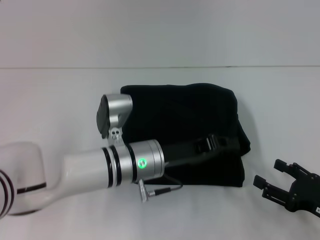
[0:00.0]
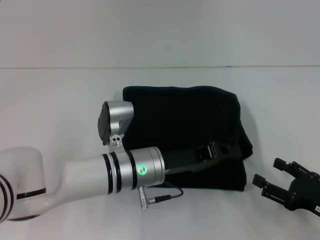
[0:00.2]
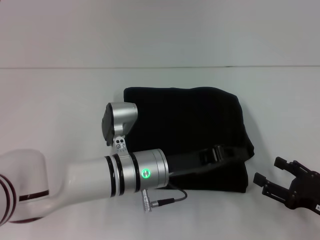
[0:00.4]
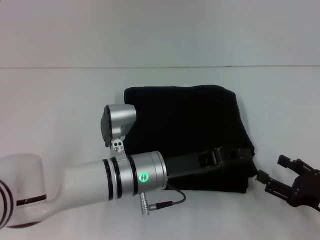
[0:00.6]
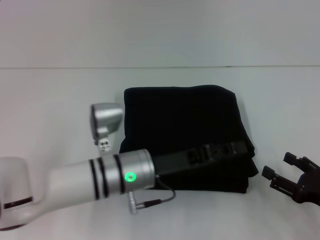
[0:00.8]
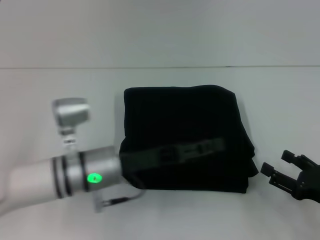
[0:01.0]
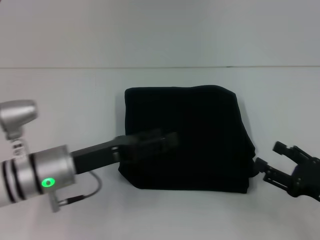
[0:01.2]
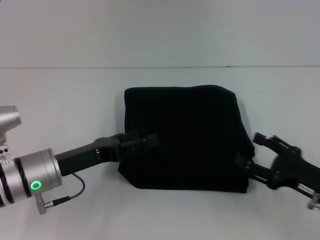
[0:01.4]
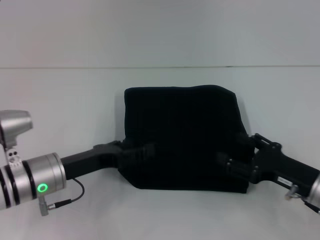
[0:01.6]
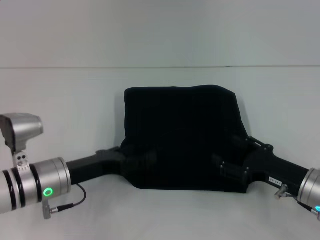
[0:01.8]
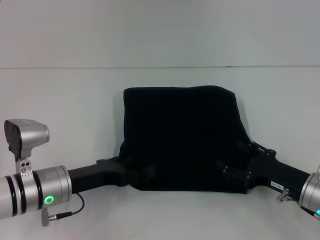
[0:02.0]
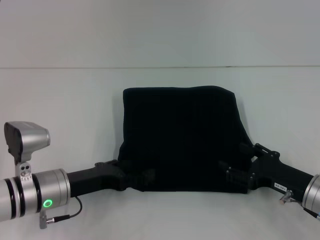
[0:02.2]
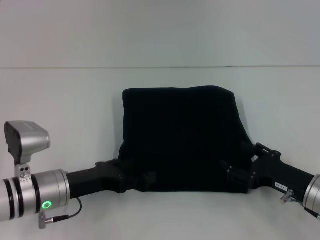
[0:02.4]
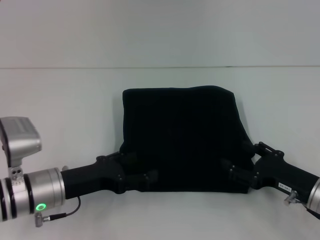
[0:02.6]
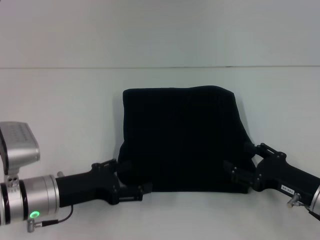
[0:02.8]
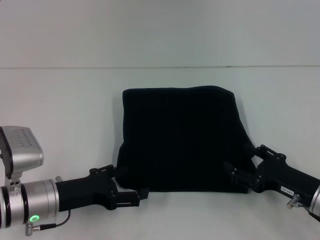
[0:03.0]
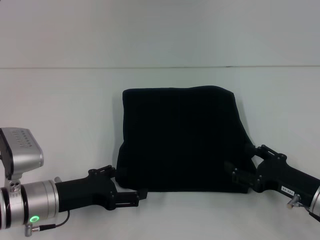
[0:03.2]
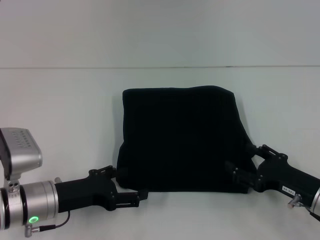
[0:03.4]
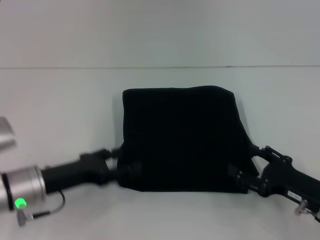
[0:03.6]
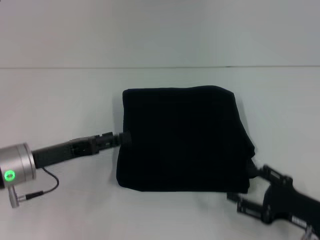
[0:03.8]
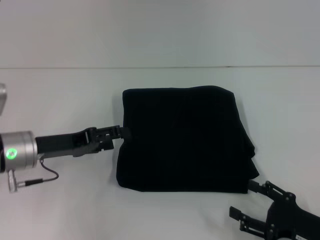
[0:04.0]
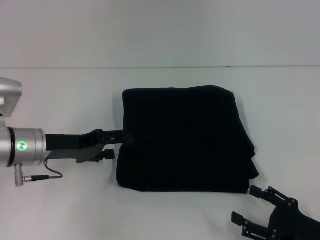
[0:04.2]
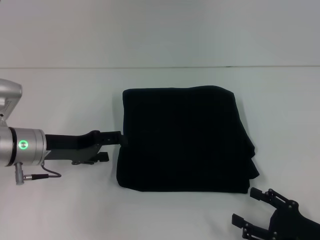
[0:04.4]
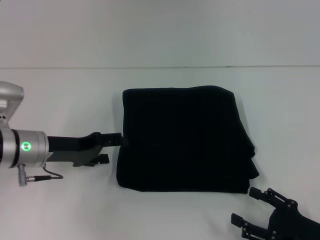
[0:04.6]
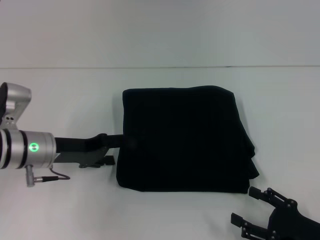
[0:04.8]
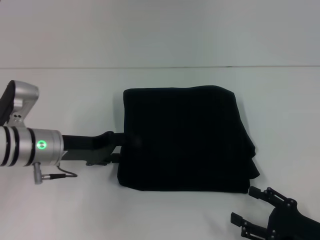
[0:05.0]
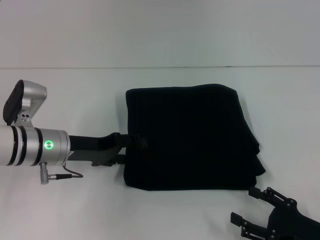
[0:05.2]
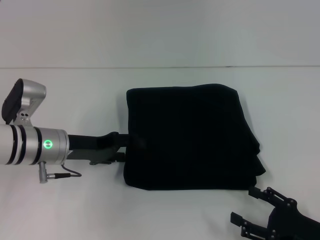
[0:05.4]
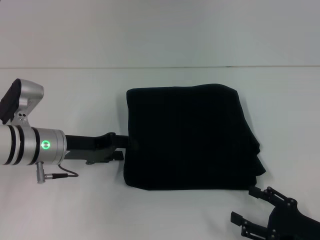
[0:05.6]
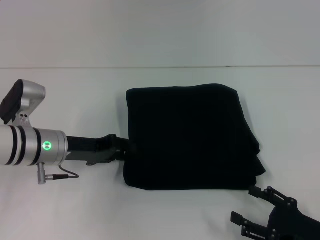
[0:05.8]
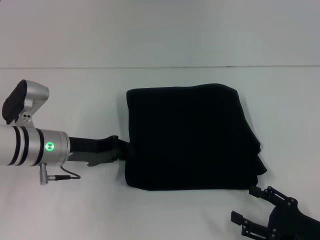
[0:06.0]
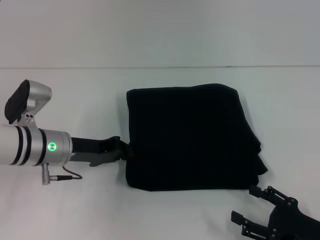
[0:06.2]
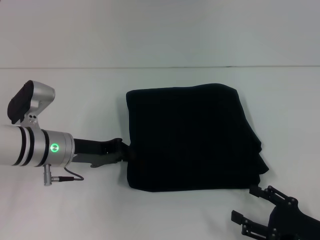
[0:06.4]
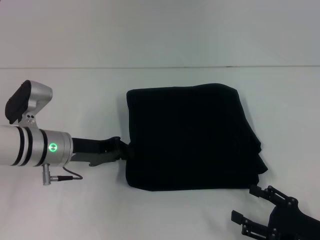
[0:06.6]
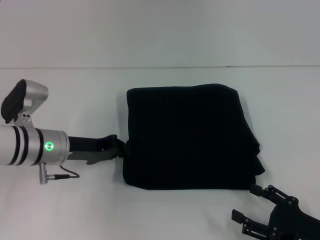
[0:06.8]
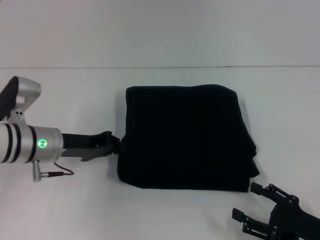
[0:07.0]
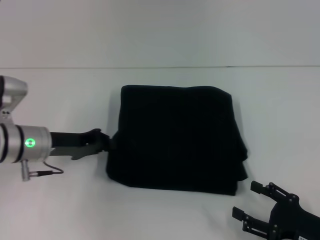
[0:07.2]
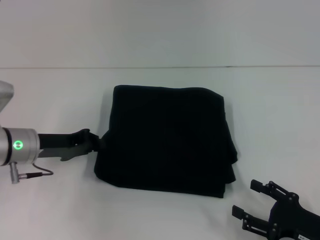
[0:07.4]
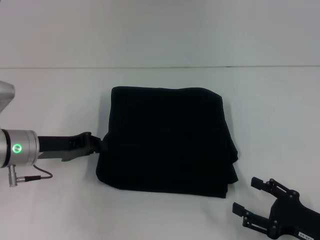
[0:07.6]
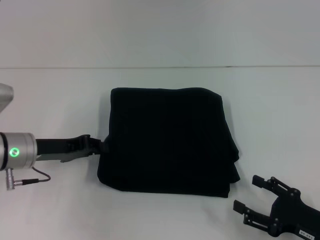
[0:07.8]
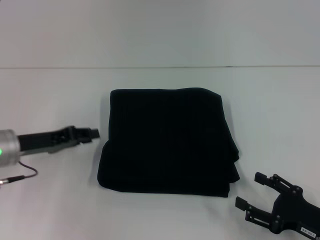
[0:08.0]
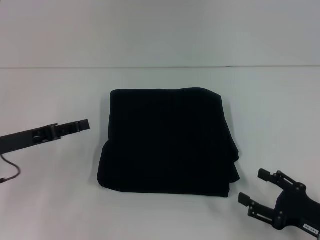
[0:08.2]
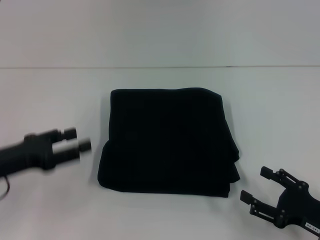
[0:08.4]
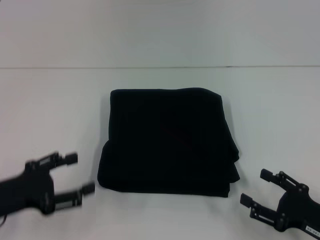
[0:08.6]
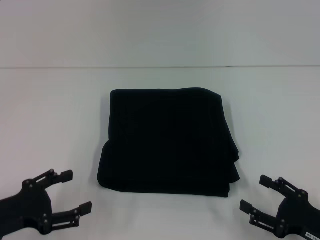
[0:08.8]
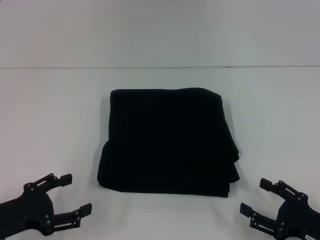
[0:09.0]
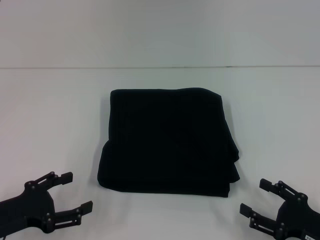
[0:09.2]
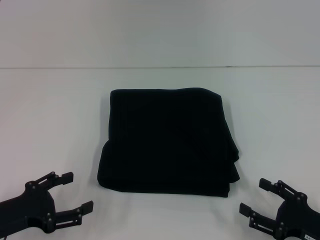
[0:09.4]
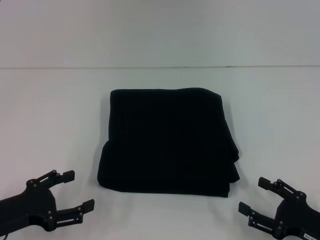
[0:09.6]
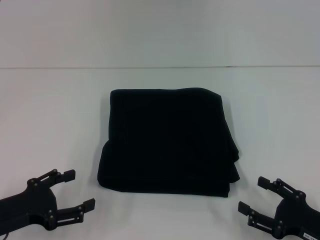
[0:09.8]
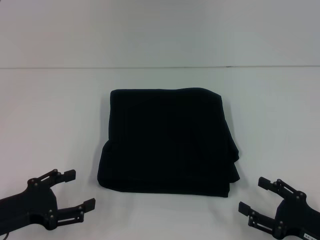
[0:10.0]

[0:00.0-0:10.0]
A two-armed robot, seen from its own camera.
0:00.0 to 0:01.4: The left gripper heads to the left, covering roughly 15 cm, and opens.
0:02.8 to 0:04.2: The left gripper heads forward, covering about 5 cm, while the right gripper moves backward, some 5 cm.
0:04.2 to 0:05.8: The left gripper closes.
0:05.8 to 0:07.2: The left gripper closes.
0:07.2 to 0:08.6: The left gripper goes approximately 15 cm backward and to the left, and opens its fingers.
0:08.6 to 0:10.0: The grippers stay close to where they were, moving slightly.

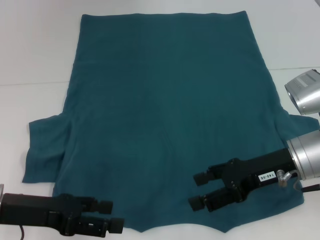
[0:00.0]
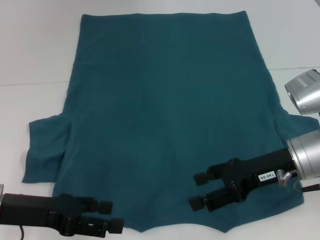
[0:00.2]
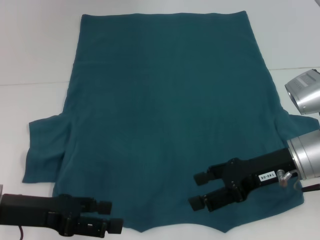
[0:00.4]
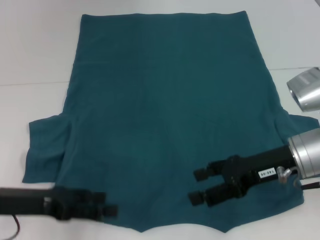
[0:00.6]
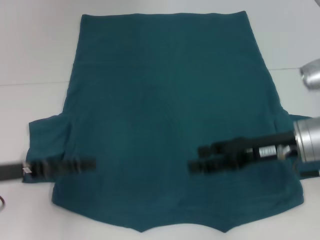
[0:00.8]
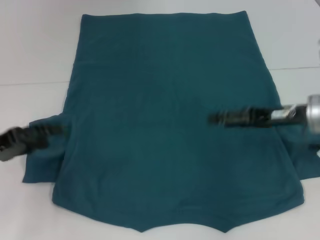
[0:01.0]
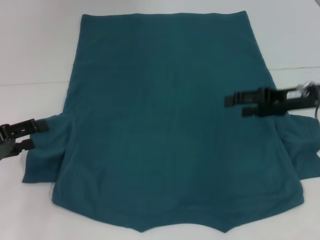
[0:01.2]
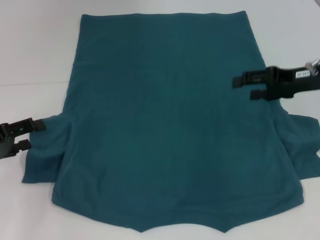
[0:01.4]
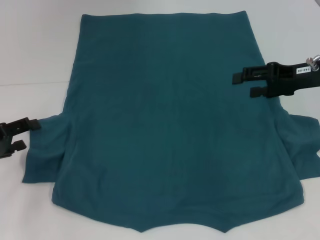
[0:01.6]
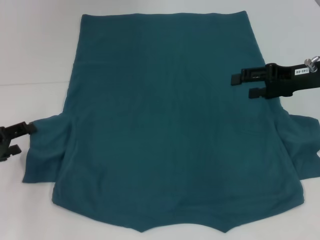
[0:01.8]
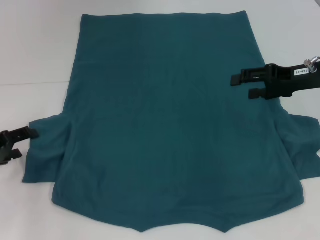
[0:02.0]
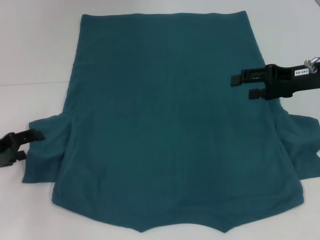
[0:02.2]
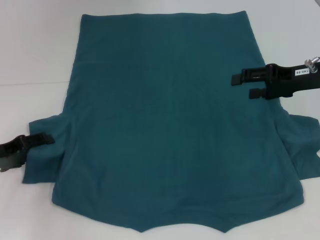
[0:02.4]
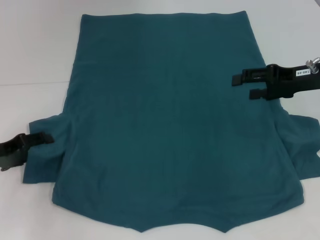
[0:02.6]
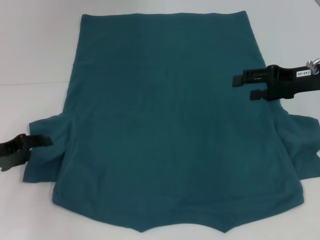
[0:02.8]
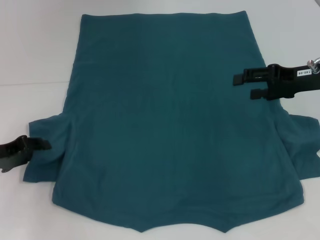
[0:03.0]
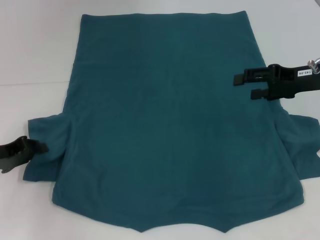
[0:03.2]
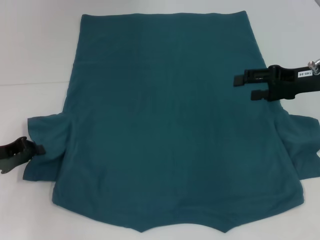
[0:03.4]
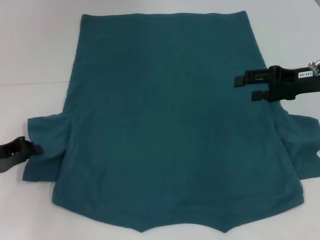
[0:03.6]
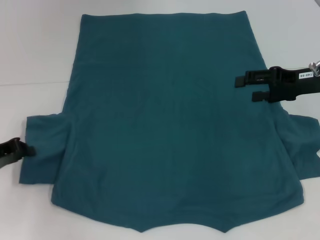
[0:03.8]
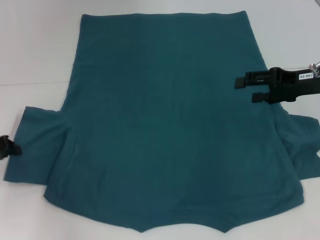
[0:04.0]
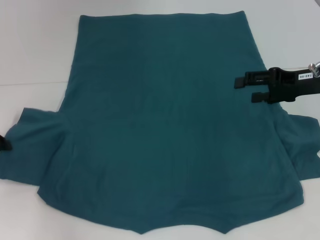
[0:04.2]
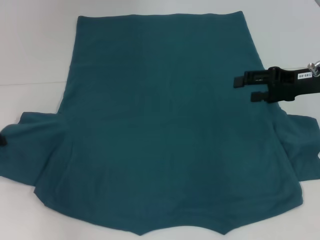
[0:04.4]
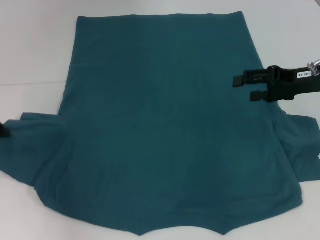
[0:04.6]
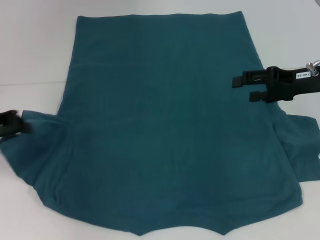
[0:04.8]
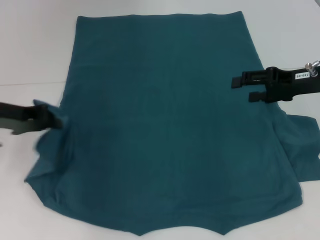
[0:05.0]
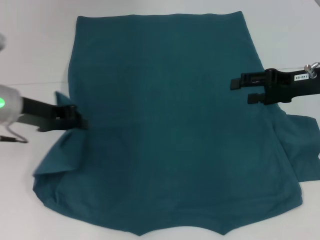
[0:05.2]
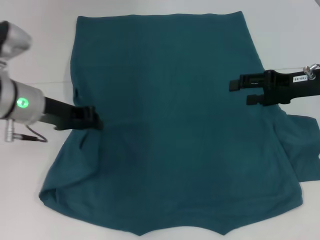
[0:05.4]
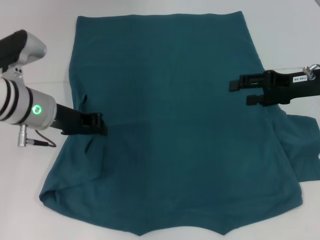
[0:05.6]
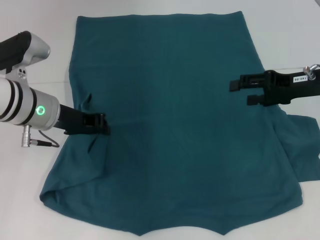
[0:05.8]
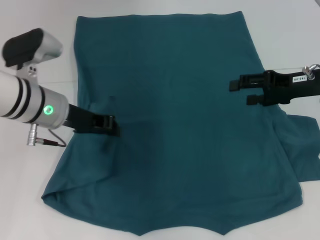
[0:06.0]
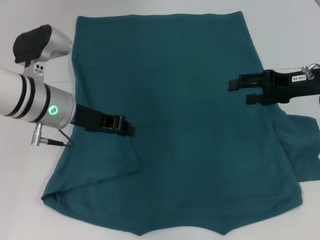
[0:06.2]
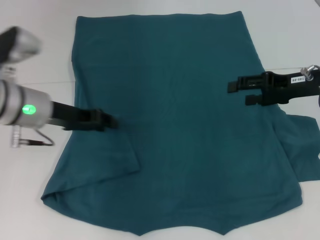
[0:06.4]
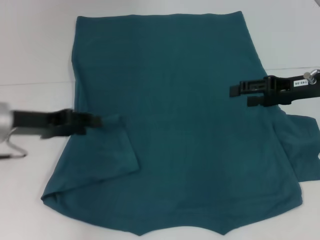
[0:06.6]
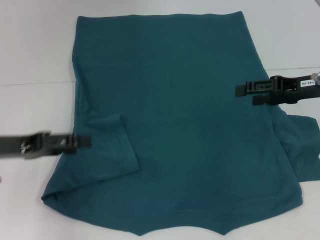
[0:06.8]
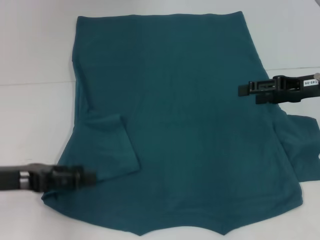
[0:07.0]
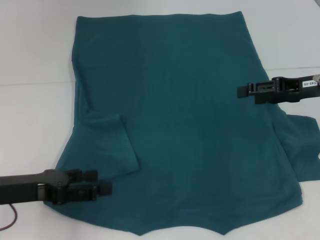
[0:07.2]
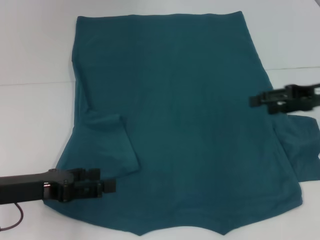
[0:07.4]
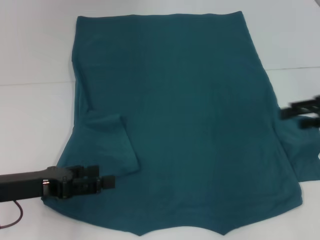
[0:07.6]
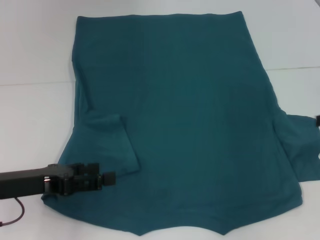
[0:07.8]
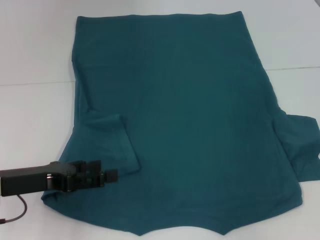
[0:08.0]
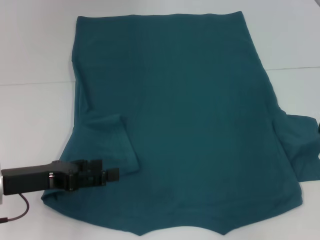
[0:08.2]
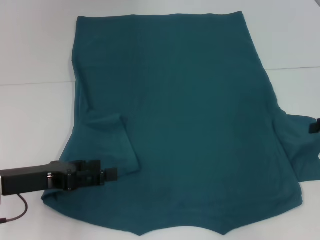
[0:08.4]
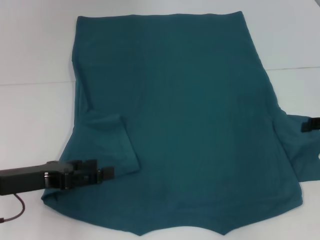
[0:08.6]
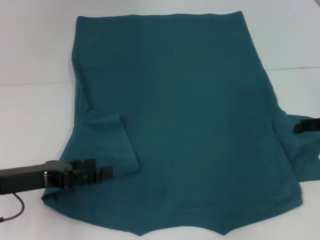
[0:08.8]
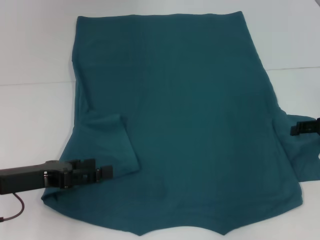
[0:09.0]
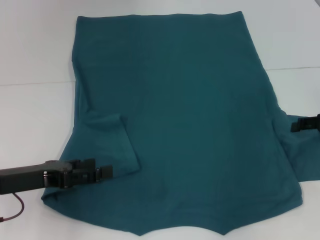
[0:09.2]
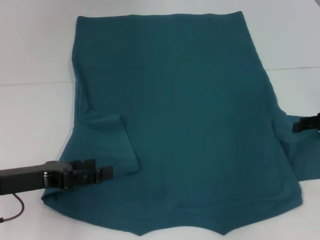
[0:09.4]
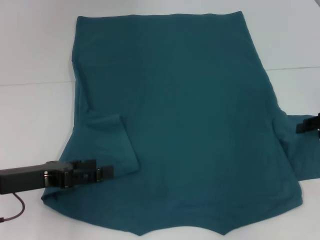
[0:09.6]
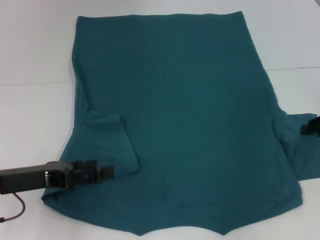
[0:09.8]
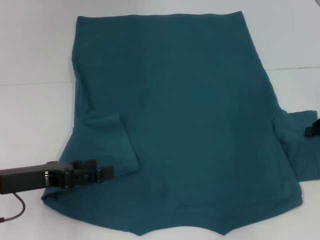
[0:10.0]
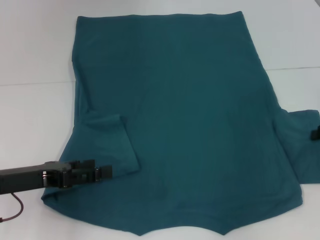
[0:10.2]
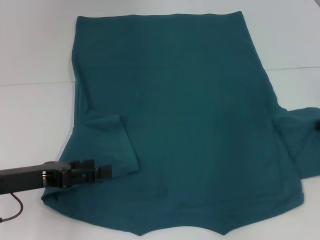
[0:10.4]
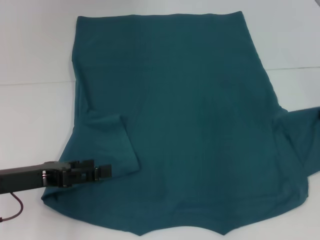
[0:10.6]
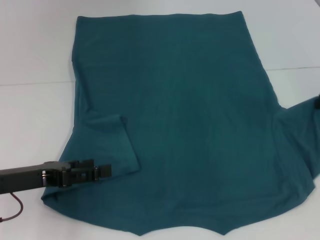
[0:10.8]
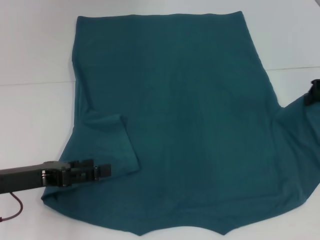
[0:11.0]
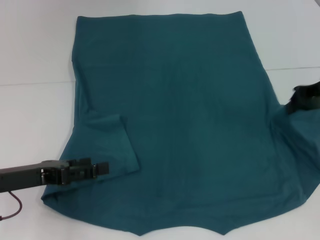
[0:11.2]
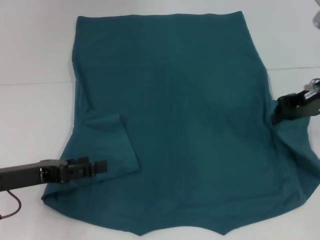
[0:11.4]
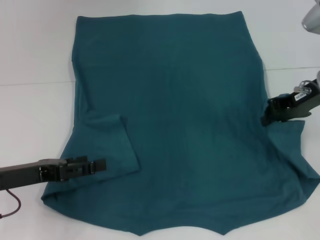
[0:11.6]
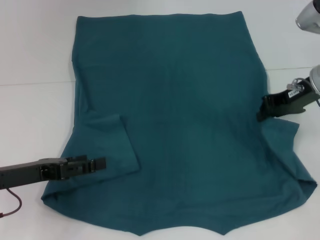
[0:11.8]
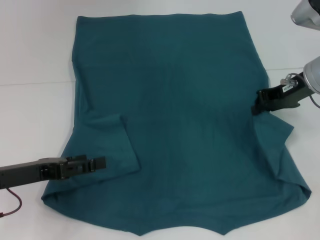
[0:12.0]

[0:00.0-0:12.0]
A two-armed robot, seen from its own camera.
Step, 0:00.0 to 0:06.2: Fold the bottom left sleeve with your left hand.
0:00.0 to 0:01.6: The right gripper travels forward, to the right and upward by about 15 cm. Meanwhile the left gripper goes about 10 cm to the left and forward.
0:01.6 to 0:03.0: There are only small adjustments of the grippers.
0:03.0 to 0:04.4: The left gripper moves about 5 cm, and closes its fingers.
0:04.4 to 0:06.0: The left gripper moves to the right, some 20 cm.
0:06.0 to 0:07.6: The right gripper moves to the right, approximately 5 cm. Meanwhile the left gripper moves backward and to the left, about 15 cm, and opens its fingers.
0:07.6 to 0:09.0: The right gripper heads downward, covering some 5 cm.
0:09.0 to 0:10.4: The right gripper closes.
0:10.4 to 0:12.0: The right gripper is displaced to the left and forward by roughly 15 cm.
